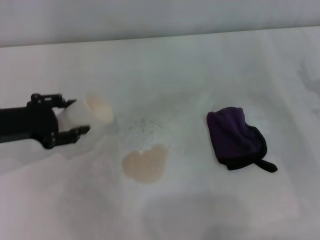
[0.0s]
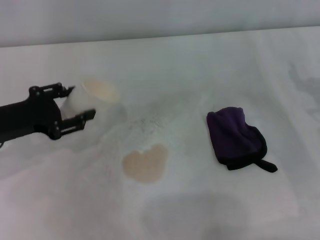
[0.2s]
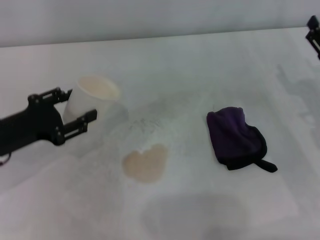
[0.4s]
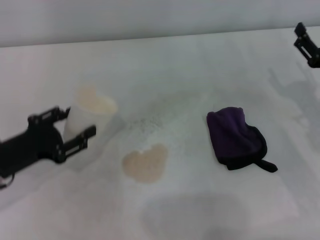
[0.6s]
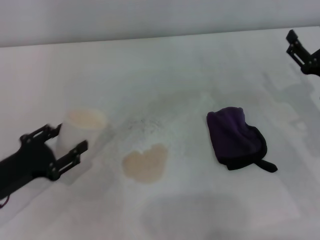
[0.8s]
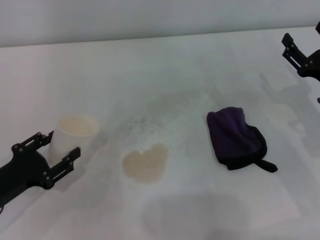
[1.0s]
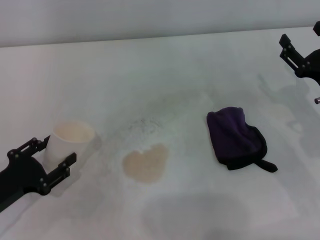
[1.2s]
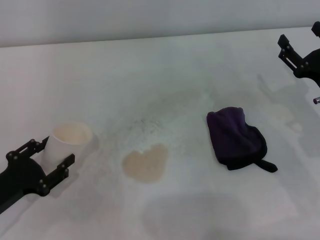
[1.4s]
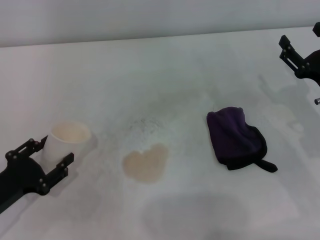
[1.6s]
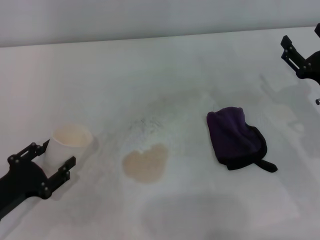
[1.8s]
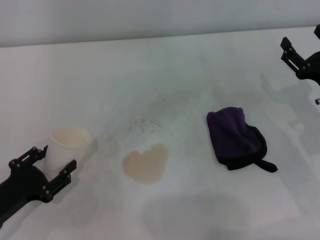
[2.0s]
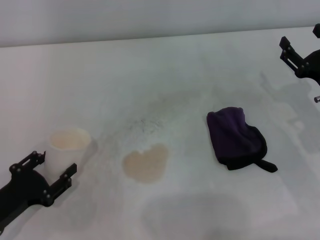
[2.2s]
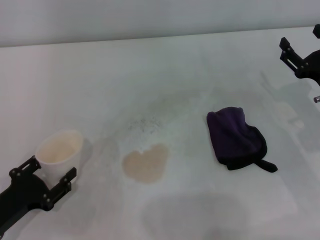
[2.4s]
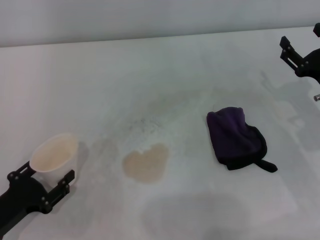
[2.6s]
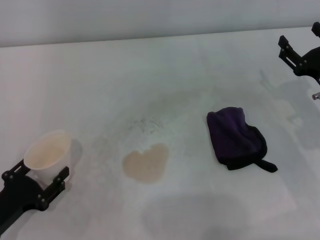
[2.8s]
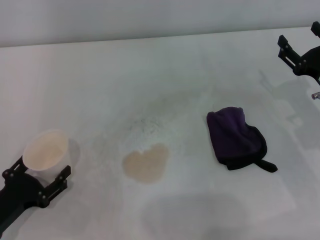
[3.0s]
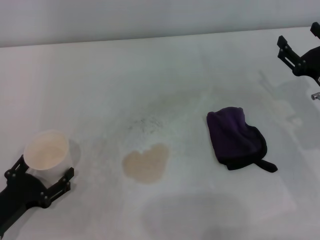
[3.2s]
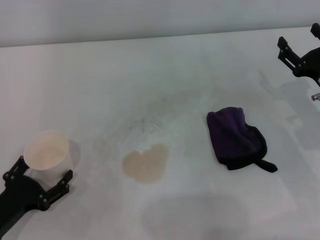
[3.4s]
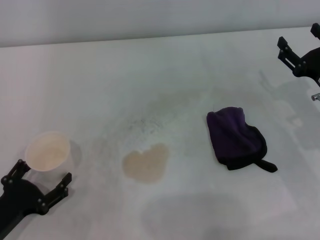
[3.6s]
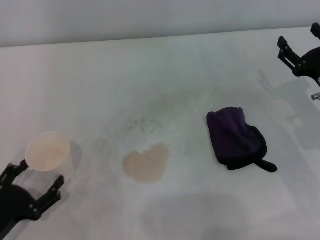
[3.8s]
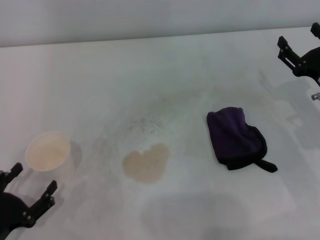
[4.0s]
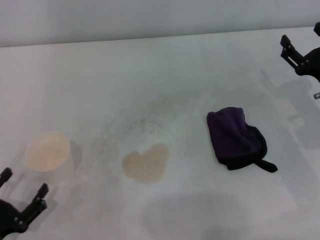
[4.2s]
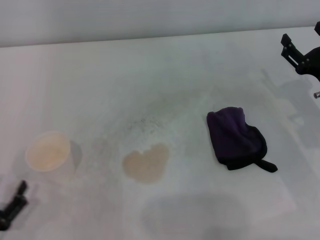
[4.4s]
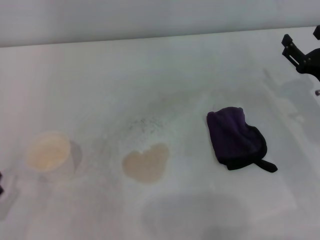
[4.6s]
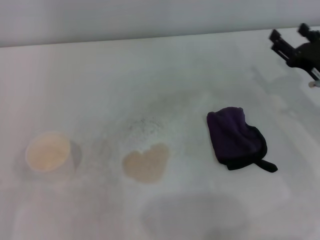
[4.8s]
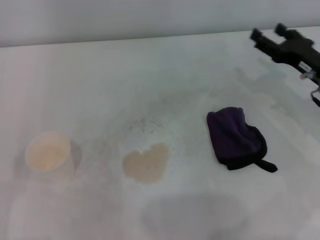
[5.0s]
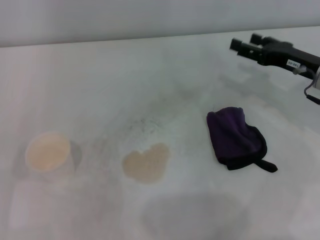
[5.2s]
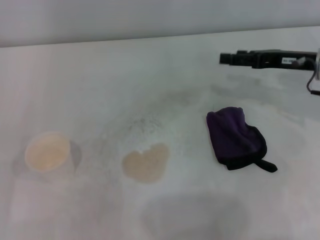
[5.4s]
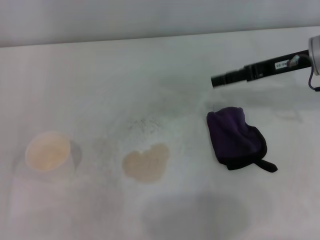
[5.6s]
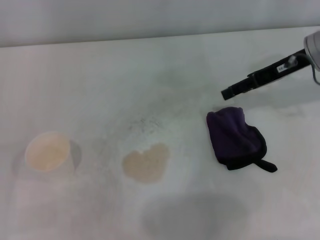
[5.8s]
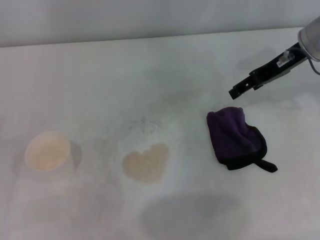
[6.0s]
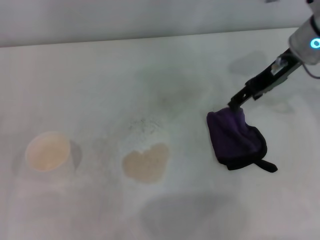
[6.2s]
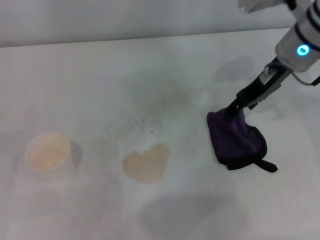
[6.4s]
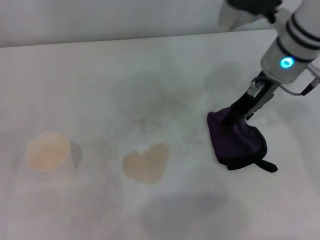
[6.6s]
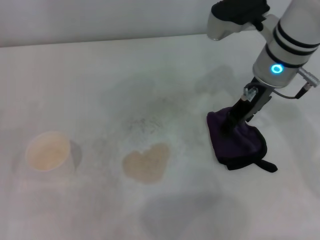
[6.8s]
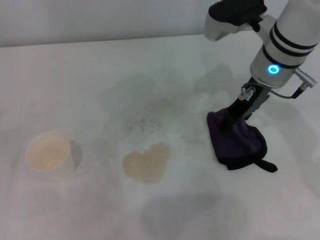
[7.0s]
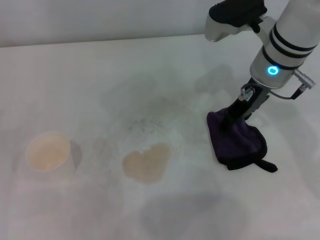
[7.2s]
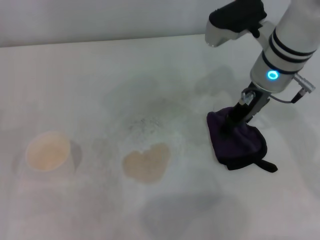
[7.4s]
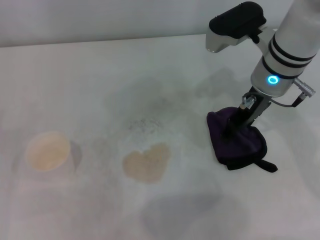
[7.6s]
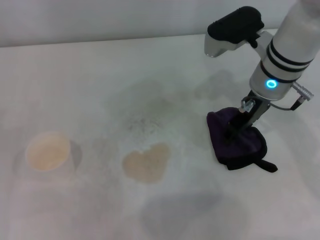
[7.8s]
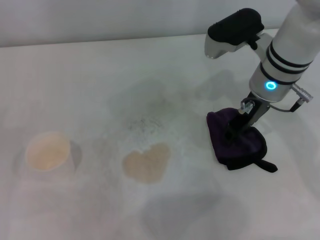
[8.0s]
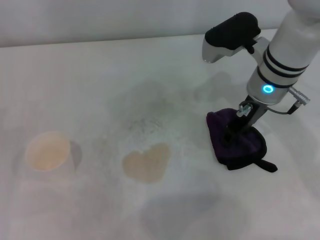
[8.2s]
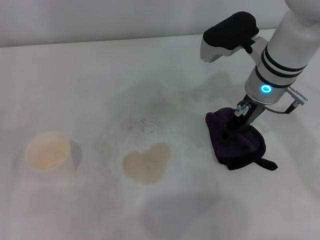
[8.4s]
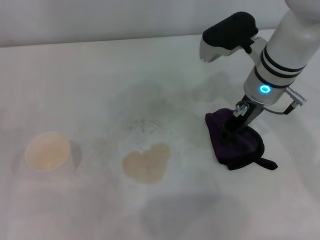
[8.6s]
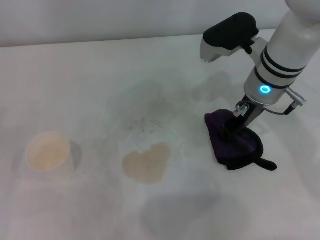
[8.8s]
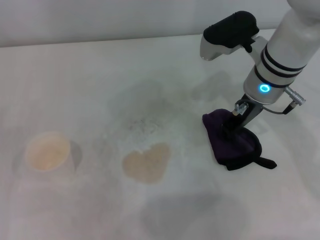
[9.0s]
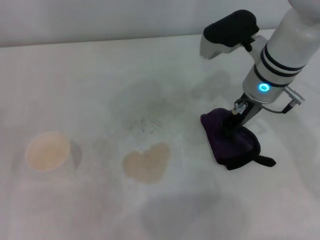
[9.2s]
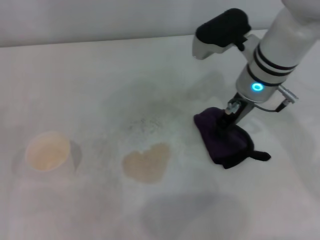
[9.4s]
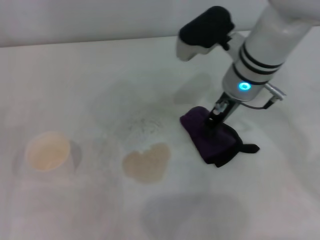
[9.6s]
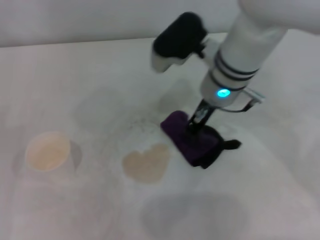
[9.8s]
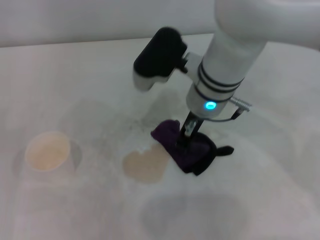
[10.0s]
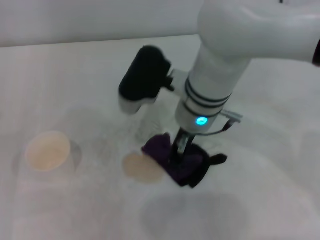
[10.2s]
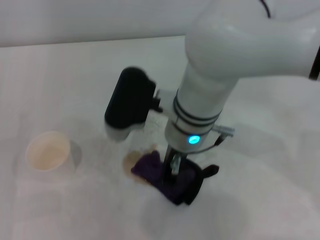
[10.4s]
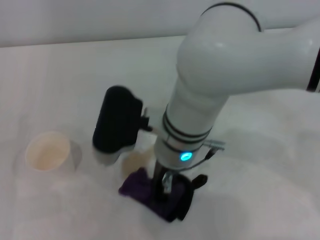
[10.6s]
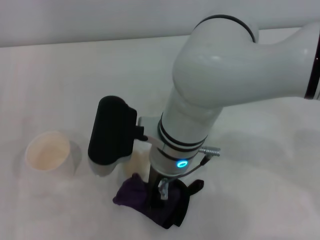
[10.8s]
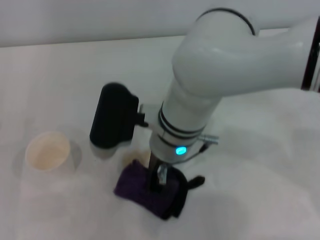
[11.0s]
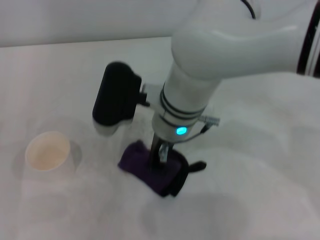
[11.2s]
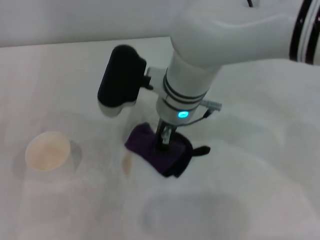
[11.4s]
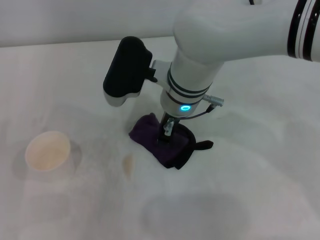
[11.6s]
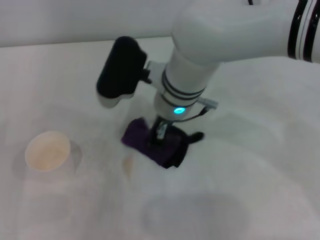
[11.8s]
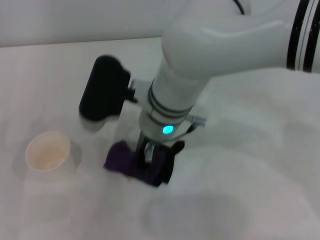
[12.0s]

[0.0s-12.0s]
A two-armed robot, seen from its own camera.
Step, 0.0s to 3.4s: Stand the paper cup upright with the left gripper.
Step, 3.6s to 8.8s: Grasp the rag with the right gripper.
0.0s to 1.6s: The left gripper is displaced backward and downward by about 15 cm.
1.6s to 3.0s: There are only small adjustments of the grippers.
3.0s to 4.4s: The left gripper is displaced backward by approximately 5 cm, and opens its fingers.
4.4s to 6.0s: The right gripper goes approximately 20 cm upward, forward and to the left; the left gripper heads forward, upward and to the left, covering approximately 15 cm.
6.0s to 7.6s: The right gripper heads to the left, covering roughly 10 cm.
7.6s to 9.0s: The right gripper closes its fingers.
9.0s to 10.4s: The right gripper goes about 15 cm to the left and backward.
10.4s to 12.0s: The grippers move only a little.

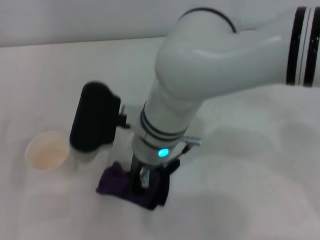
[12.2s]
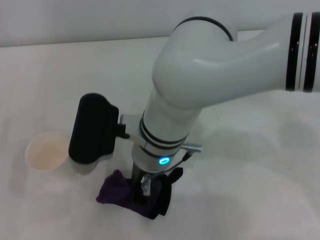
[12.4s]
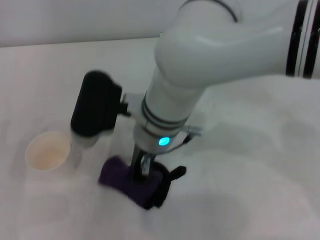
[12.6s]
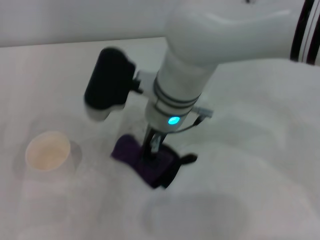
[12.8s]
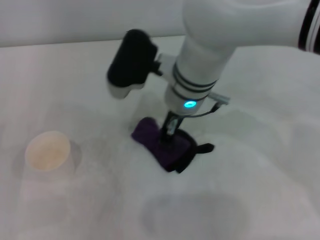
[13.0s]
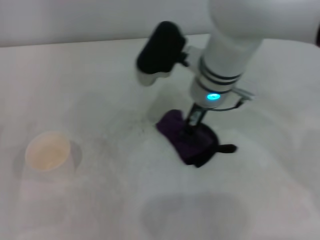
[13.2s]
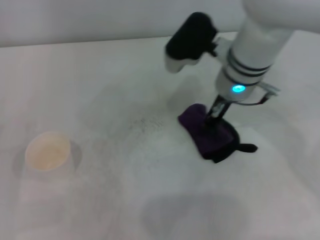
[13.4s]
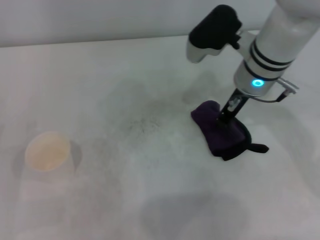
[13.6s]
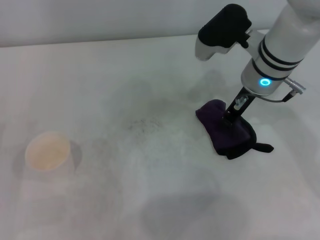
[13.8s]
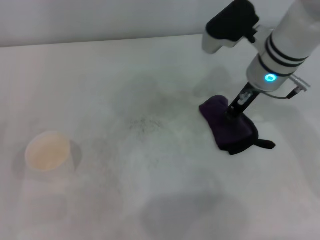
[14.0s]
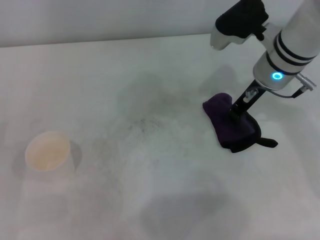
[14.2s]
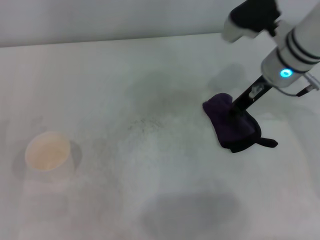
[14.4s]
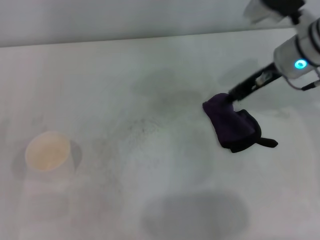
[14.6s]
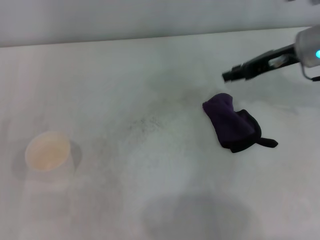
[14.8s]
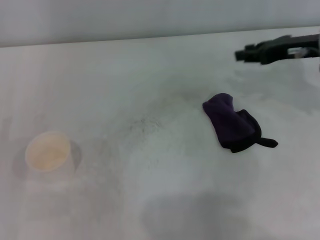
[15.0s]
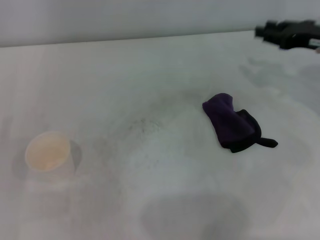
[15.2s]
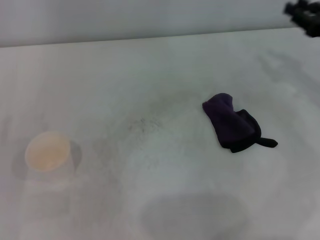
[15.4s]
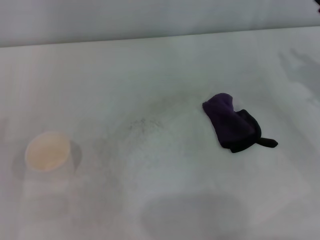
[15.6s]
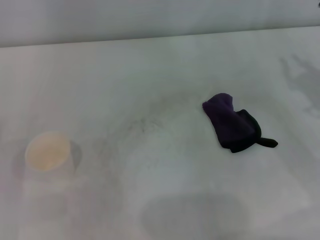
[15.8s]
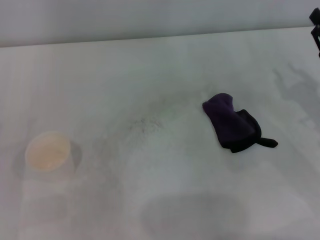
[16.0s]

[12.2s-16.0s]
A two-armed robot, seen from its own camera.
Step, 13.6s to 14.0s: Place the rag on the table with the right gripper.
12.2s to 13.4s: The right gripper travels to the right and forward by approximately 15 cm.
13.4s to 14.8s: The right gripper is displaced to the right by about 15 cm.
14.8s to 16.0s: The right gripper goes about 15 cm backward, downward and to the right.
